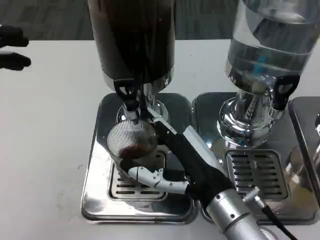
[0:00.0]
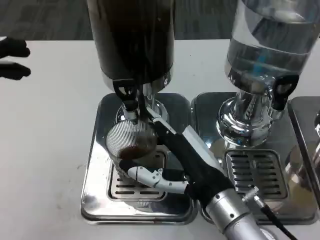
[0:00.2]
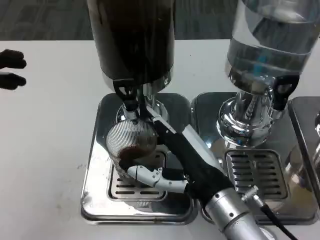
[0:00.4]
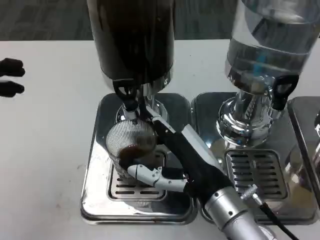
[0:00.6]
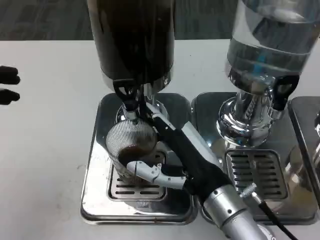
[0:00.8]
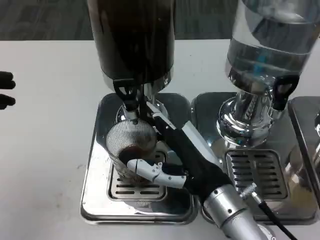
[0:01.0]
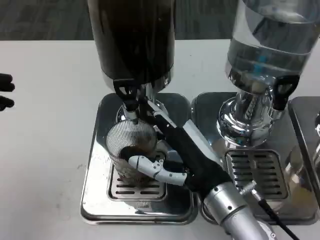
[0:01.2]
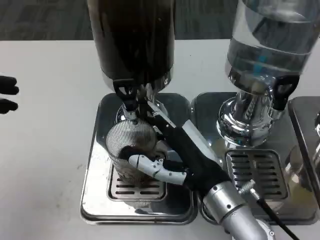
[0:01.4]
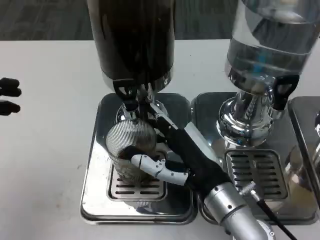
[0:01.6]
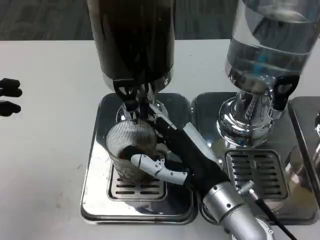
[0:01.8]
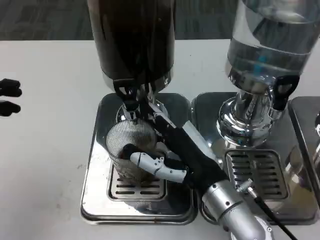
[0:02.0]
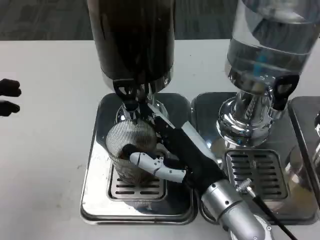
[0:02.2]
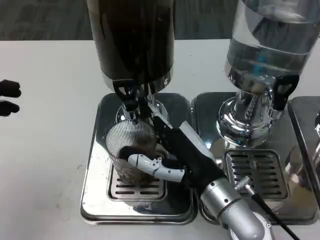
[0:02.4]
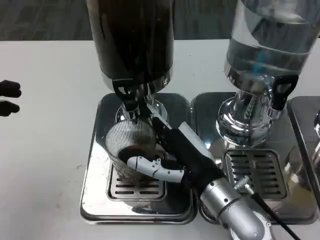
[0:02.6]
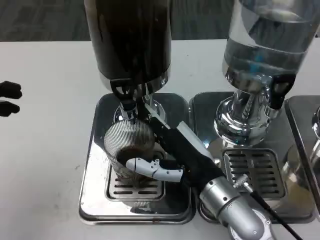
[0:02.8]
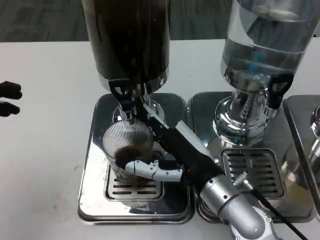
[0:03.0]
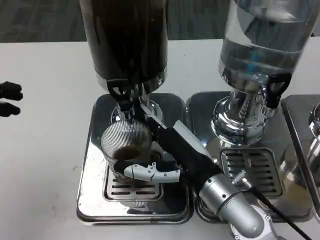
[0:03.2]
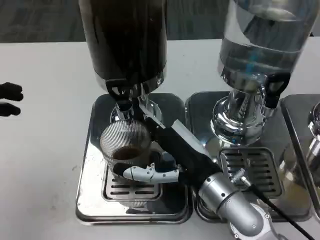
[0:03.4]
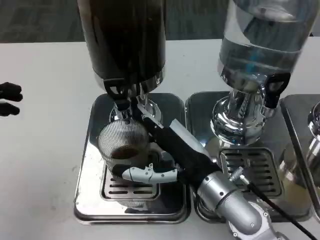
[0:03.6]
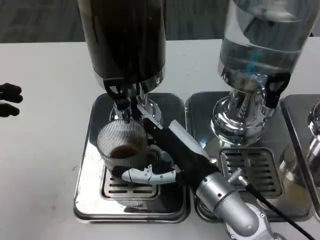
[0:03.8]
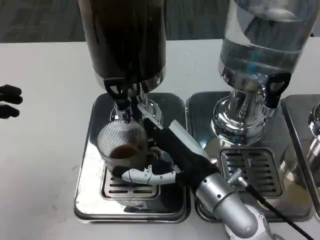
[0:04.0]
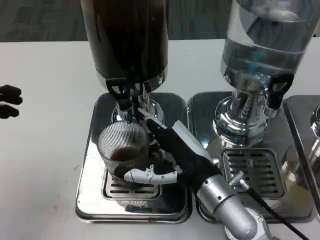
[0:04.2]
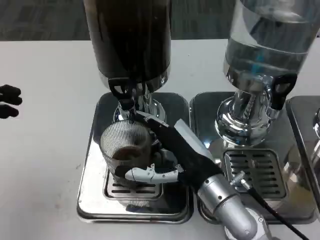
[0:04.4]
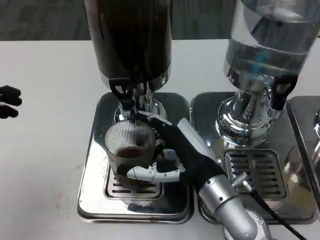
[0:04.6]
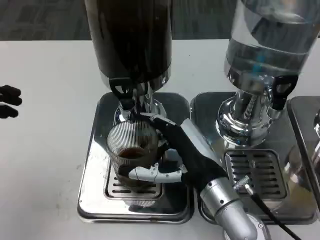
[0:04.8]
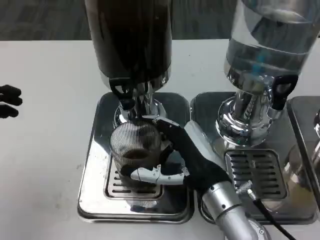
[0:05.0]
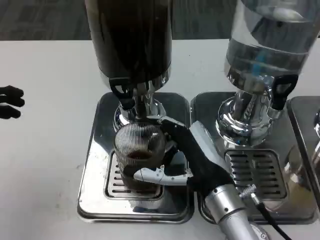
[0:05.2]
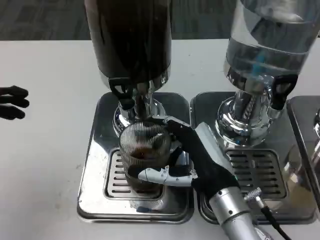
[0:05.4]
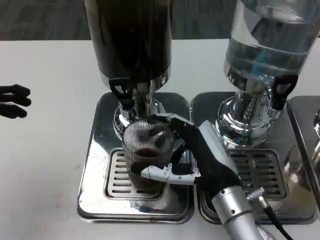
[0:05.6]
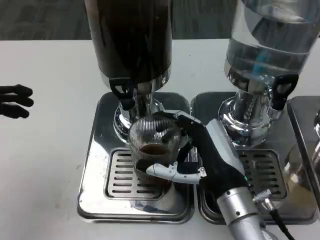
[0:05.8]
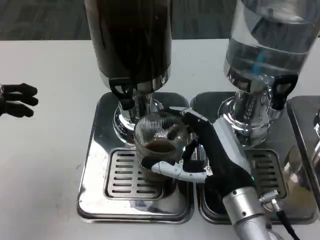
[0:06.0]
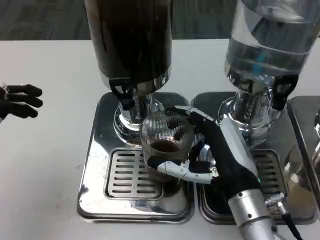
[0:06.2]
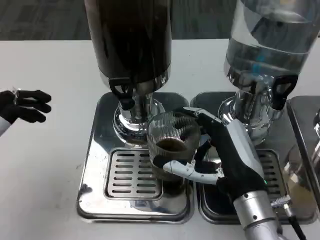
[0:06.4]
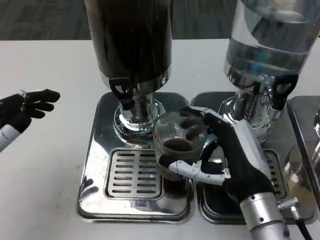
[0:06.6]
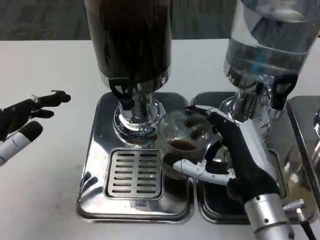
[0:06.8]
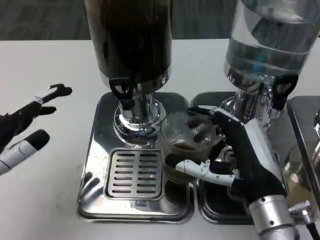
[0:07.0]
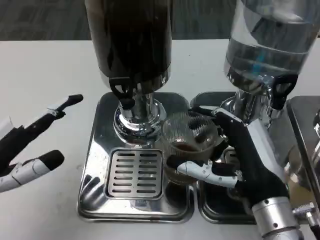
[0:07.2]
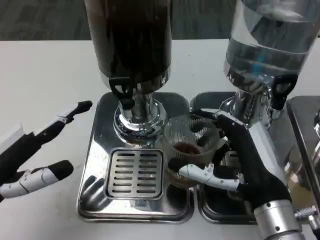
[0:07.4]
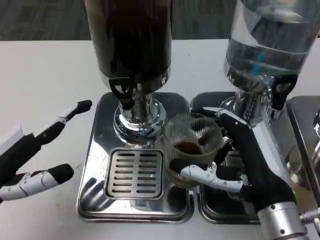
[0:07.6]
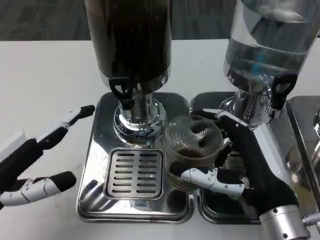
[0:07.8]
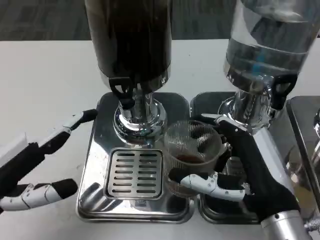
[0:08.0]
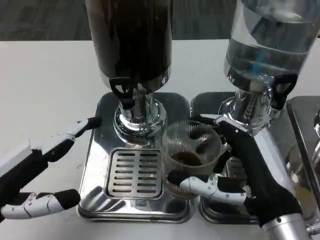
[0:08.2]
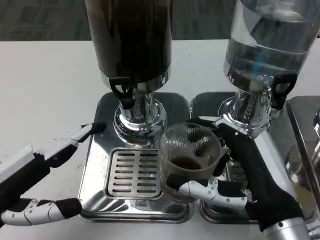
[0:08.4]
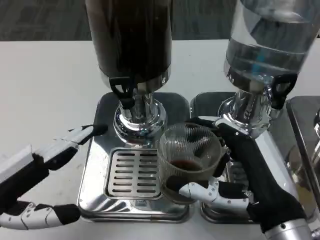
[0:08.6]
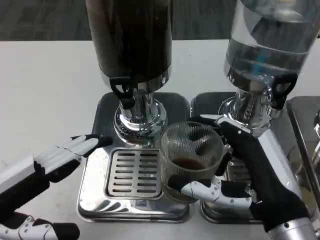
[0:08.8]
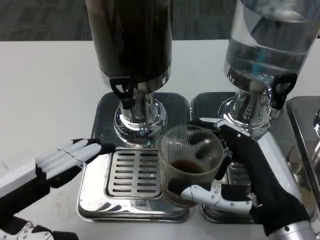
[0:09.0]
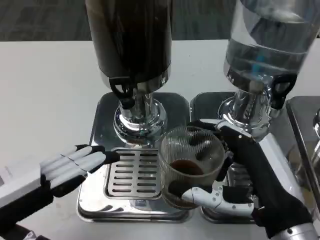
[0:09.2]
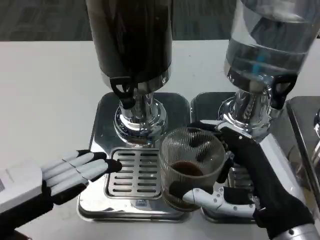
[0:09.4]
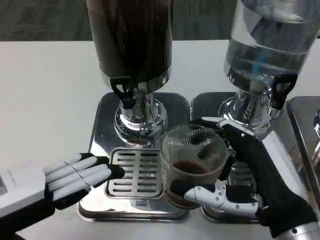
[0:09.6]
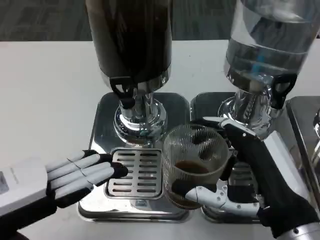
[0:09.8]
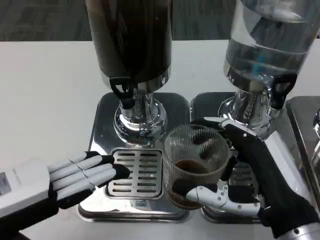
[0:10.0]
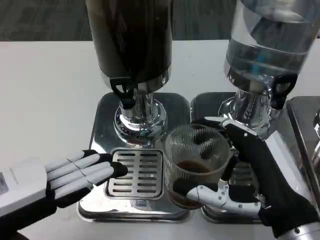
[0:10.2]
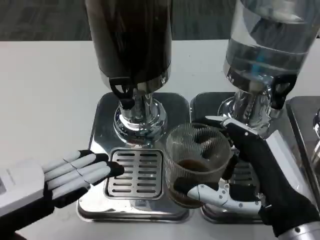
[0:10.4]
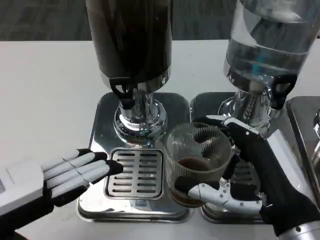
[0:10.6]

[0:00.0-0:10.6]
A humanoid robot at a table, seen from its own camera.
Task of the whole recording: Grasp the cup under the faucet to collect the drink, then remove the cup.
0:00.0 to 0:01.6: There are only small adjustments of the hands.
0:03.0 to 0:04.6: The hands make only small movements.
0:04.6 to 0:06.0: The hands make only small movements.
0:06.0 to 0:07.6: The right hand ends up about 5 cm from where it was.
0:09.0 to 0:10.6: The hands make only small movements.

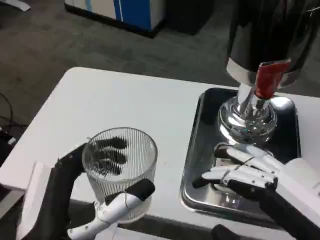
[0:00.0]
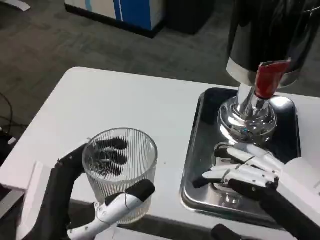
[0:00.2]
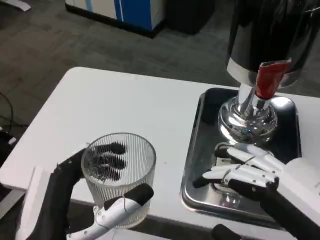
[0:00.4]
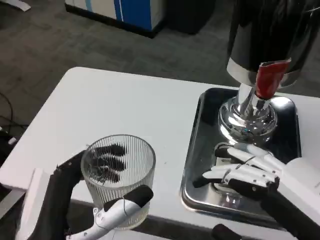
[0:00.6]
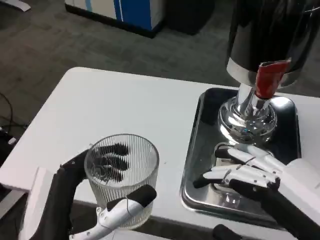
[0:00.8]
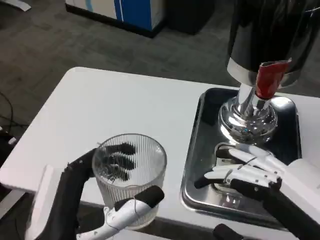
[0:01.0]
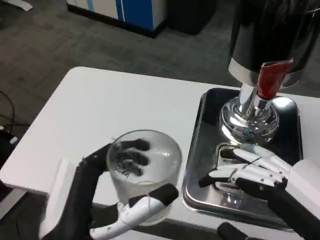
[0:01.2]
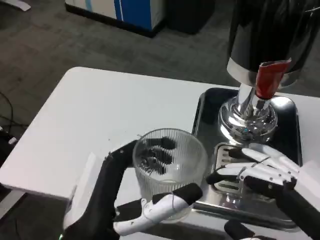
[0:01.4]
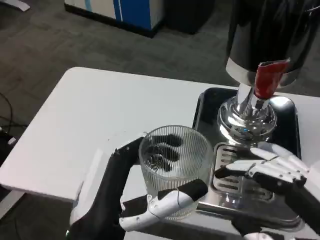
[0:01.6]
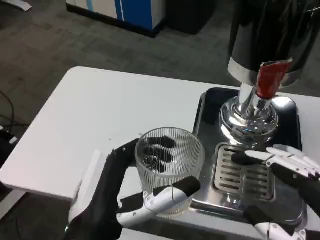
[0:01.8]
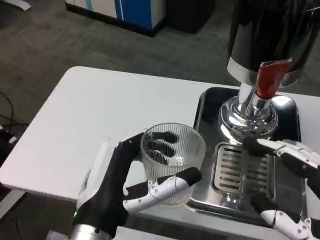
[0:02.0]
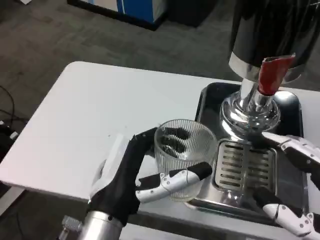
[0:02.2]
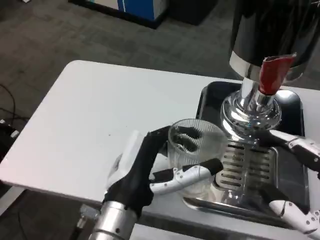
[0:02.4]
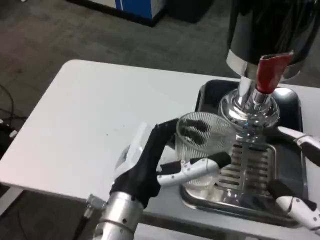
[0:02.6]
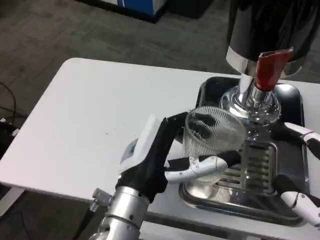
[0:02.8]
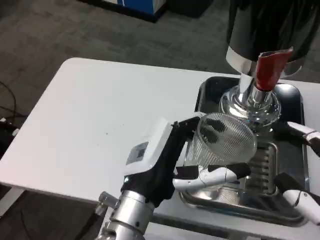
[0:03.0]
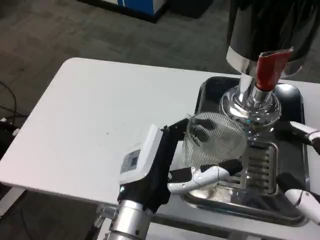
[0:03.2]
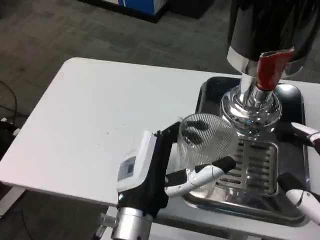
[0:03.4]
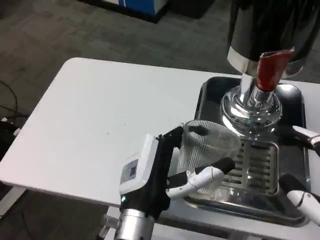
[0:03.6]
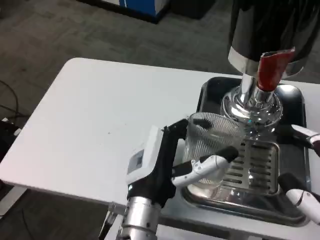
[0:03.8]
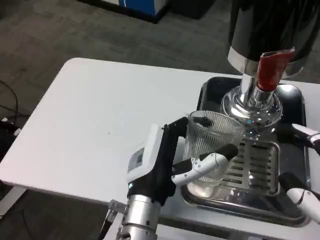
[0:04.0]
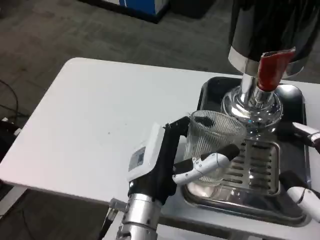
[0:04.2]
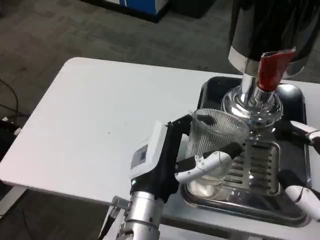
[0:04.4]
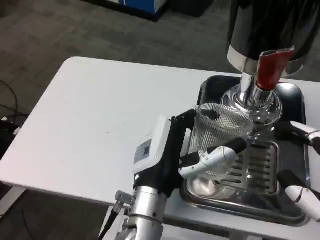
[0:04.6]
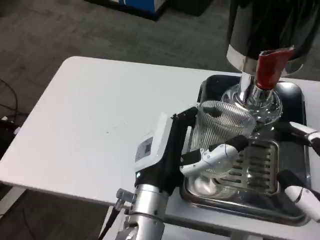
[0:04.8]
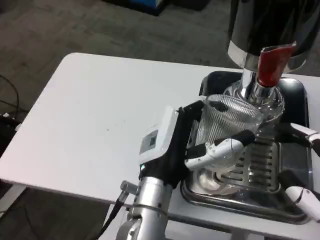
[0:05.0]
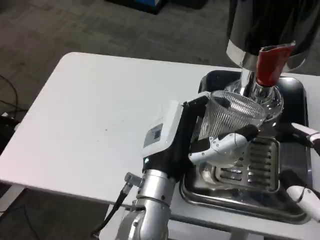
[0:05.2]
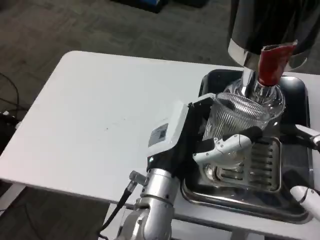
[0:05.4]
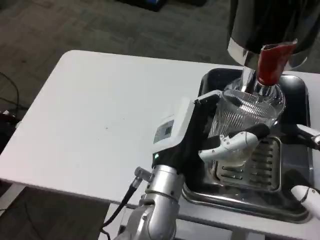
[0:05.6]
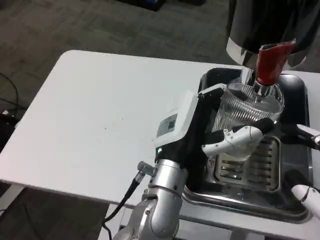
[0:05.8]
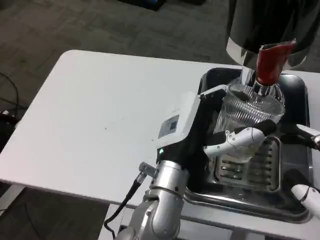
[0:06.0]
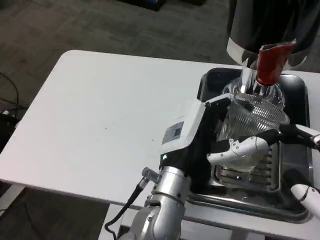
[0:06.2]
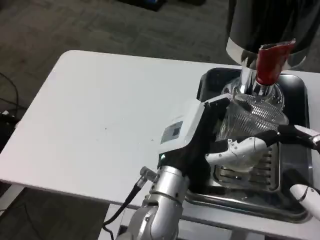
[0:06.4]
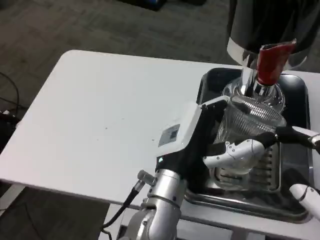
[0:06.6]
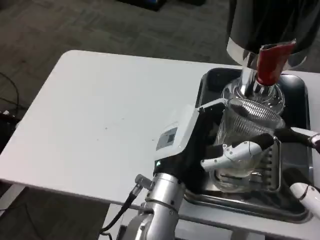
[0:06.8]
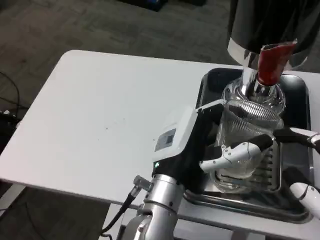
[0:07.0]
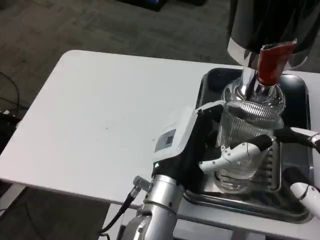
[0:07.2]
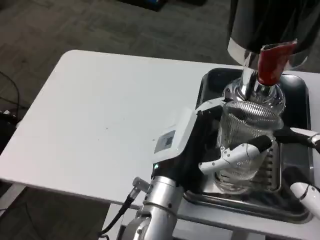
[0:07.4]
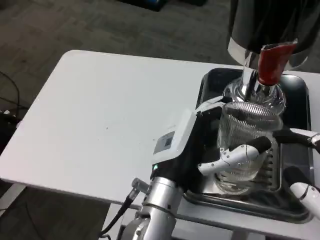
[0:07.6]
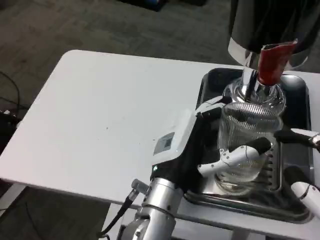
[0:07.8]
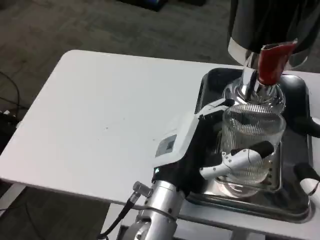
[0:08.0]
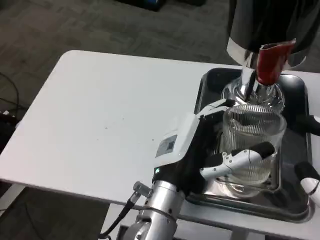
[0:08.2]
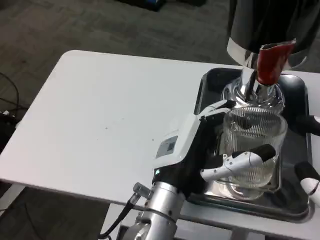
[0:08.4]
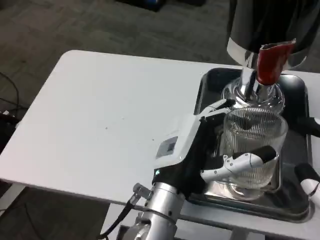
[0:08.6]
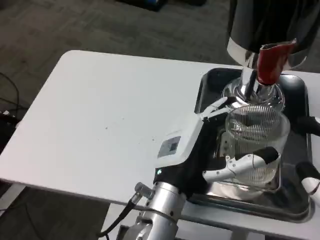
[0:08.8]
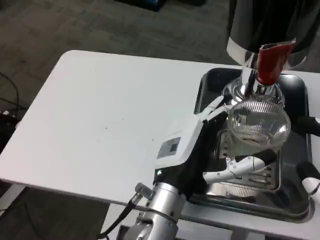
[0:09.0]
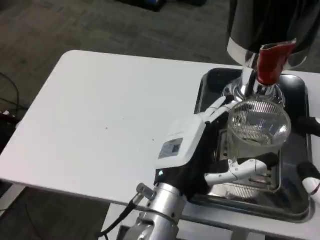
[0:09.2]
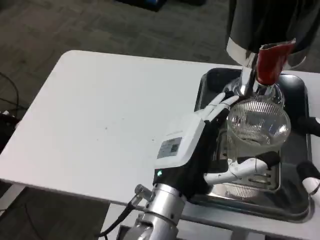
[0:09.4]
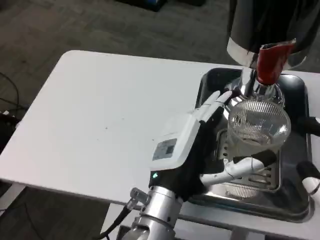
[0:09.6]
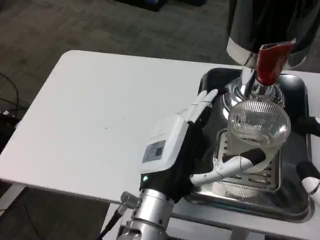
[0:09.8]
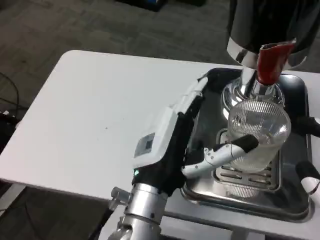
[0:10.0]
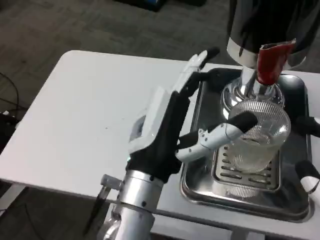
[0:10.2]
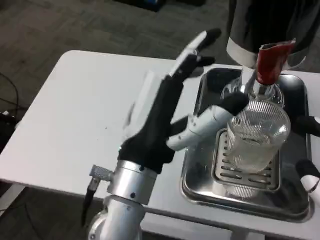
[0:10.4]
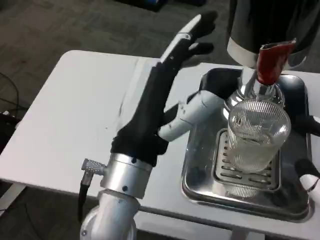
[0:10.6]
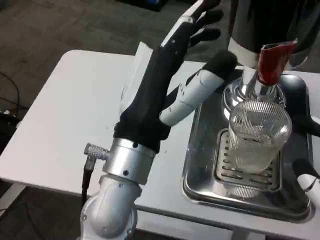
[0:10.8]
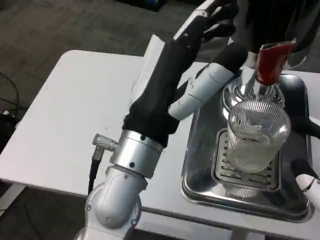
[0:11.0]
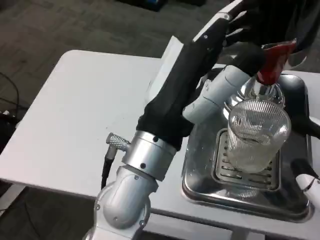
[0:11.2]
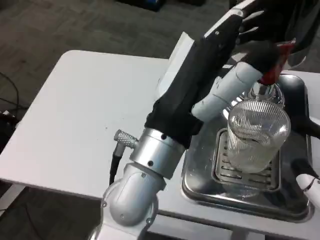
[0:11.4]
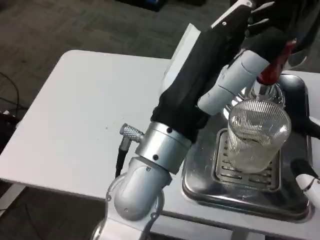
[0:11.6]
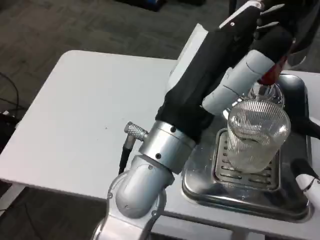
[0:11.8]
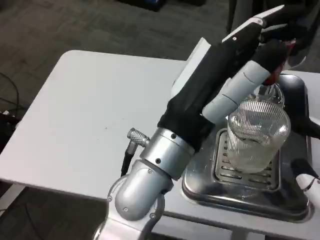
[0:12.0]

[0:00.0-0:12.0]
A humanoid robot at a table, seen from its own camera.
Task of the whole recording: Grasp the cup under the faucet to collect the drink, then remove the cup.
0:01.6 to 0:03.0: The left hand goes some 10 cm forward.
0:06.0 to 0:09.0: There are only small adjustments of the hands.
0:09.0 to 0:10.4: The left hand shifts roughly 5 cm upward.
